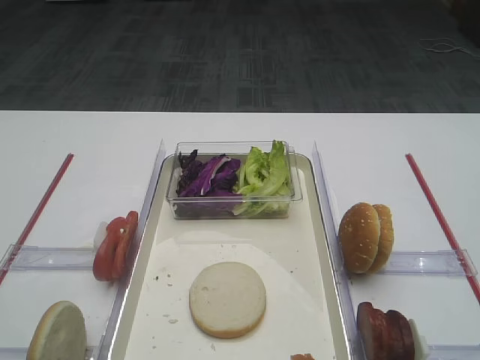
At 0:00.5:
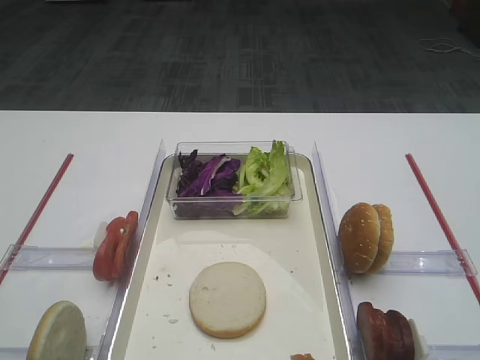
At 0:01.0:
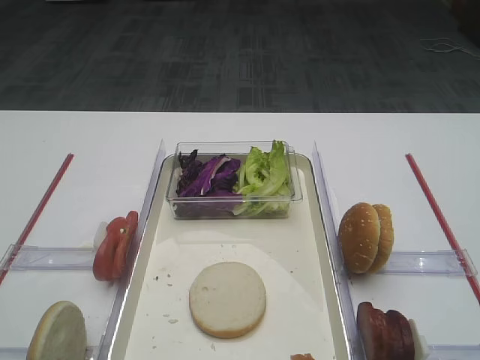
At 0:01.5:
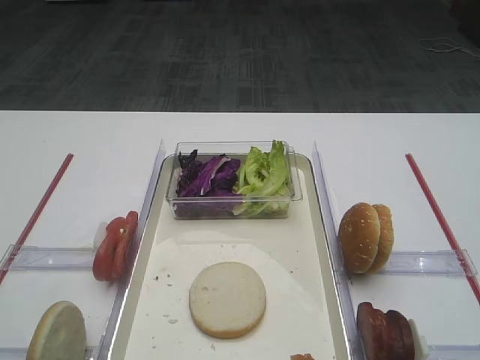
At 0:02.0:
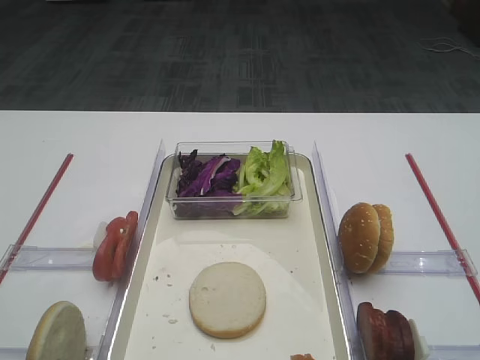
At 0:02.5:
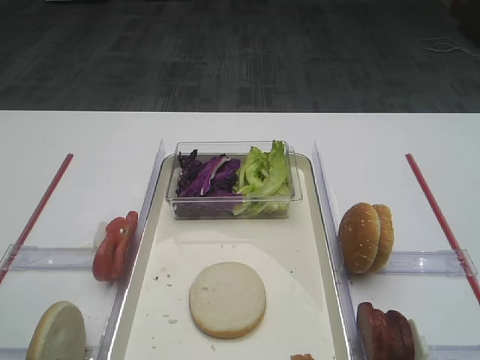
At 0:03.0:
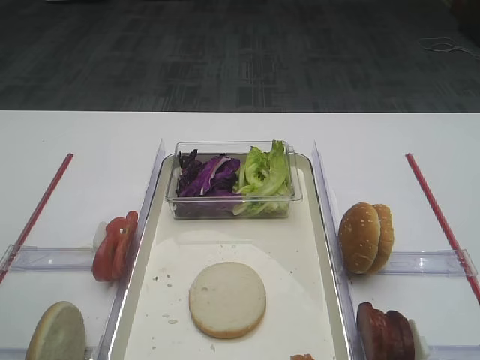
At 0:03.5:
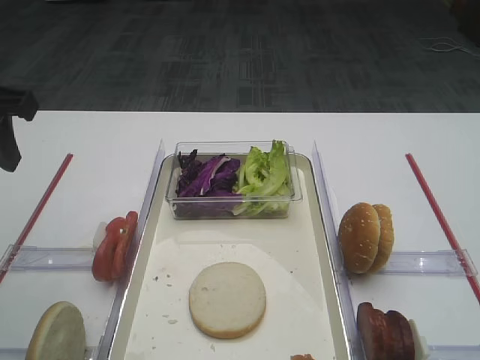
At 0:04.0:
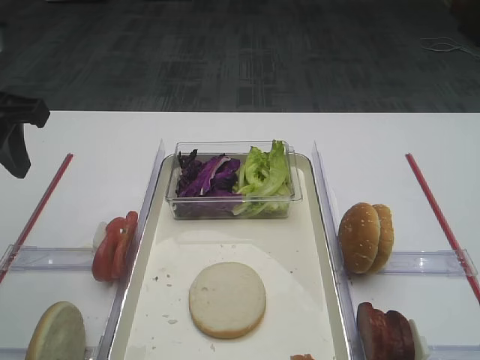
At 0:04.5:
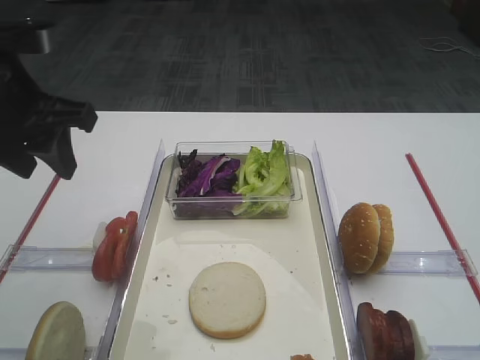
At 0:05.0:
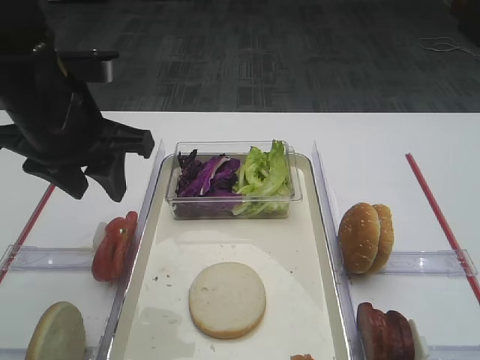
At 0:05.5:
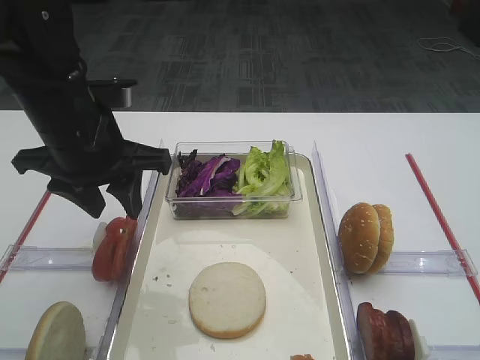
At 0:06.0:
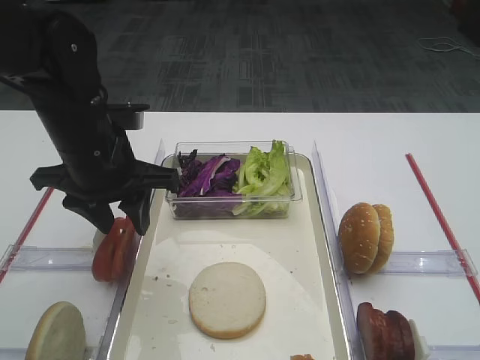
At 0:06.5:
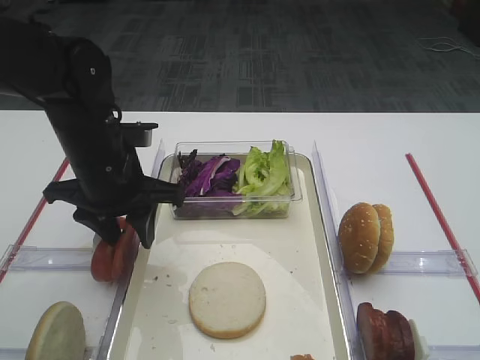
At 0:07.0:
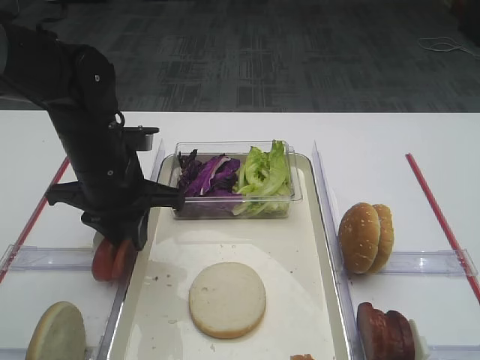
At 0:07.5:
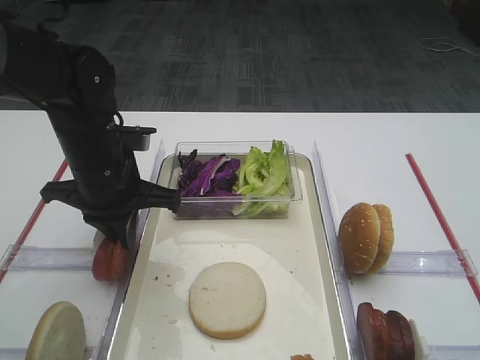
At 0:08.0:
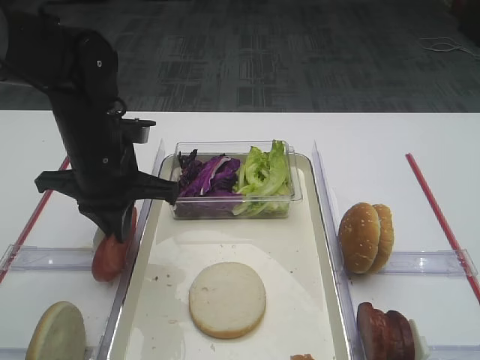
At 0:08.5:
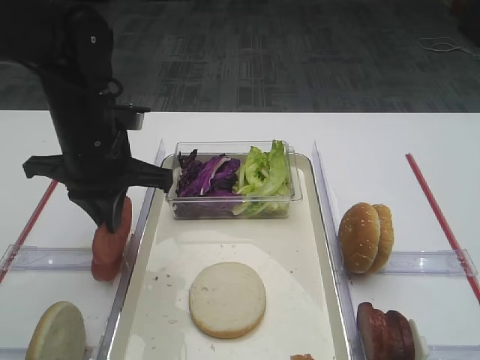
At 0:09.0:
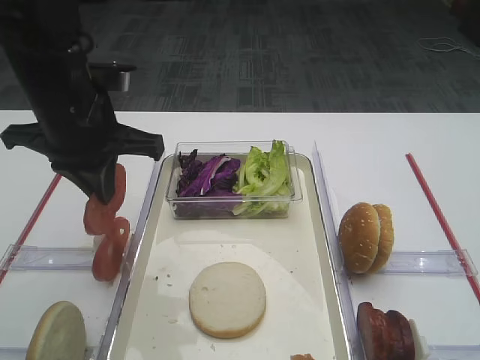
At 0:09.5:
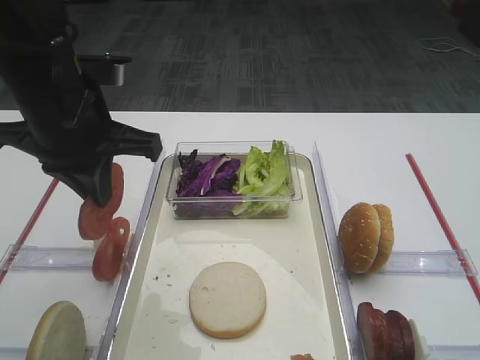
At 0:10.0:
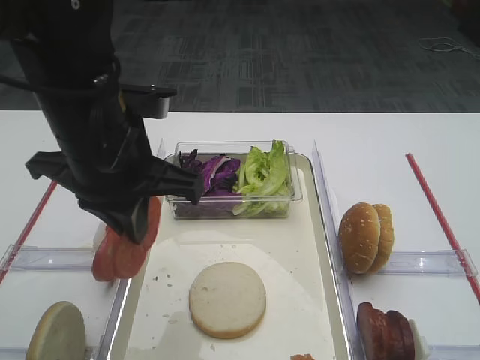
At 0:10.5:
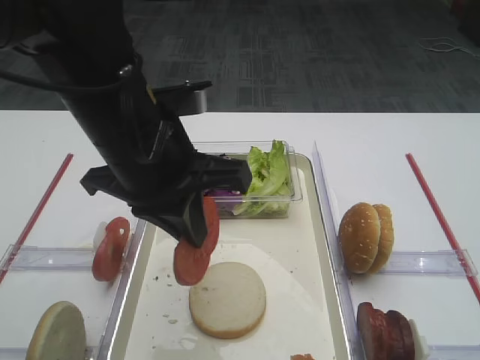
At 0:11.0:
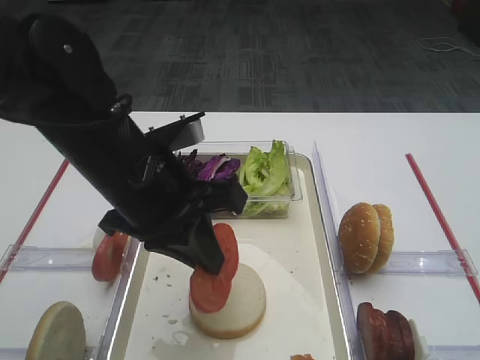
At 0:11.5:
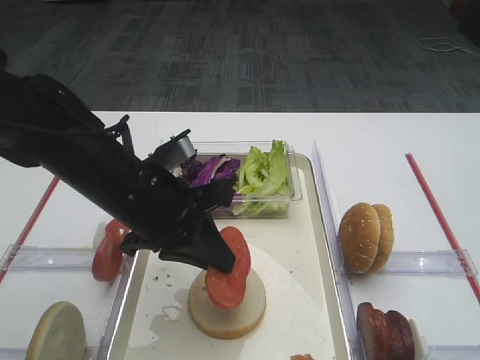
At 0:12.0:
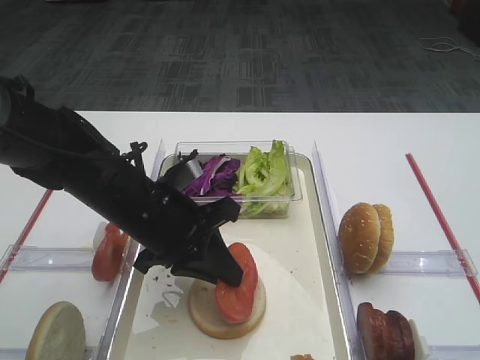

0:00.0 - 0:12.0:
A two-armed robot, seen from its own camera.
Step, 0:00.0 - 0:08.0: Pick up the tomato slice with the left gripper.
0:02.0 - 0:04.0: The left gripper travels forward by about 25 cm.
0:04.0 - 0:06.0: The left gripper goes roughly 15 cm to the right and downward.
0:06.0 - 0:08.0: The left gripper closes its fingers.
0:08.0 - 0:10.0: The left gripper travels upward and backward by about 10 cm.
0:10.0 - 0:12.0: The left gripper goes some 10 cm downward.

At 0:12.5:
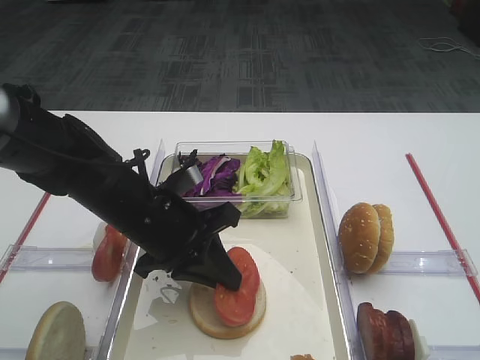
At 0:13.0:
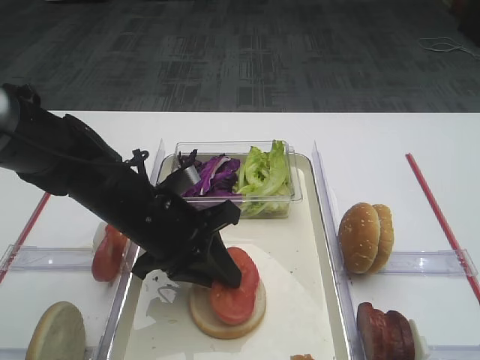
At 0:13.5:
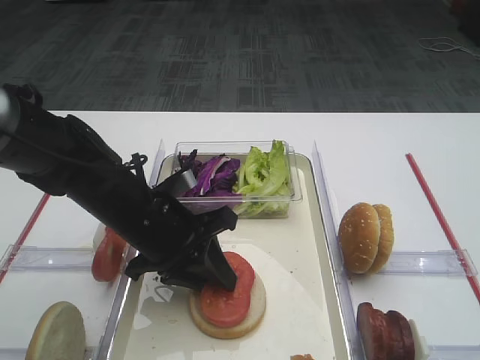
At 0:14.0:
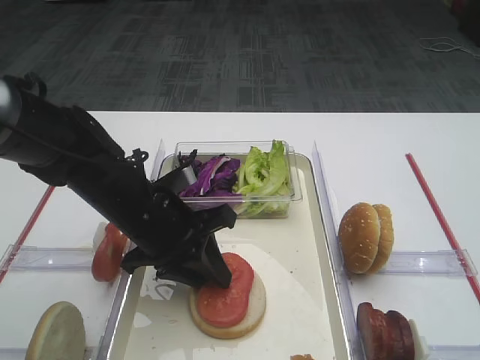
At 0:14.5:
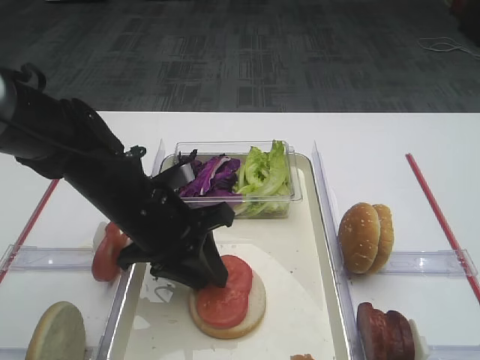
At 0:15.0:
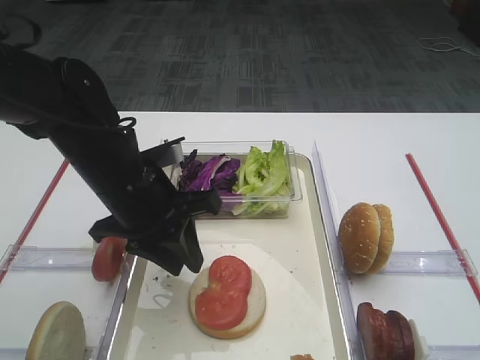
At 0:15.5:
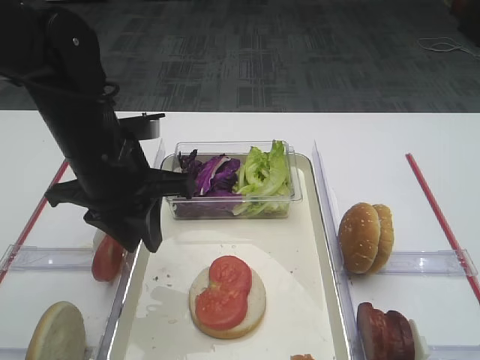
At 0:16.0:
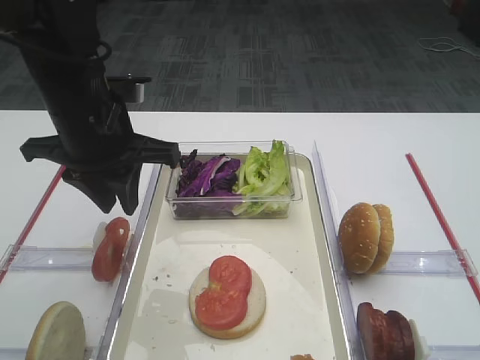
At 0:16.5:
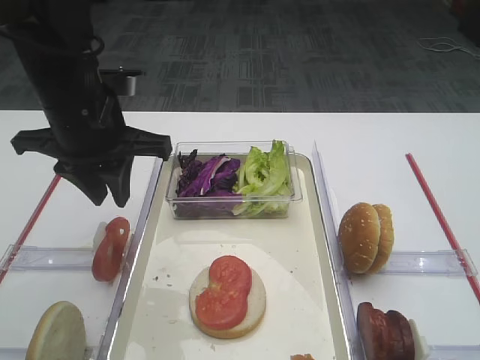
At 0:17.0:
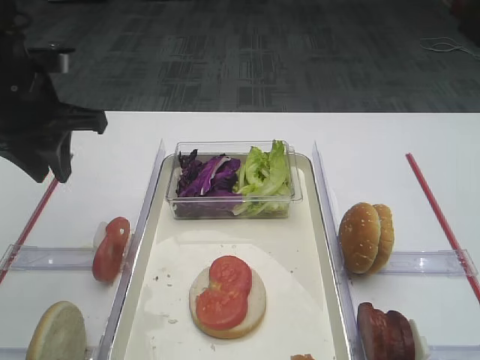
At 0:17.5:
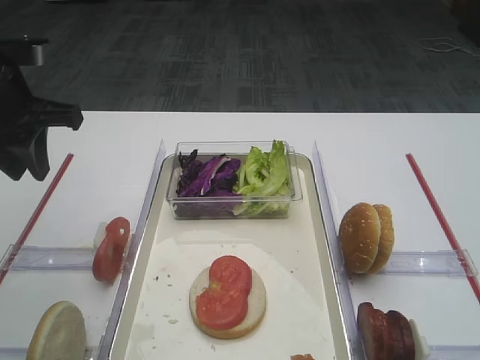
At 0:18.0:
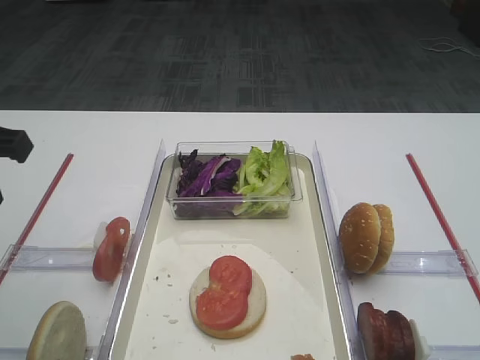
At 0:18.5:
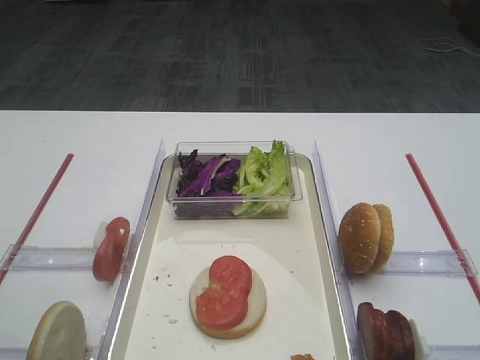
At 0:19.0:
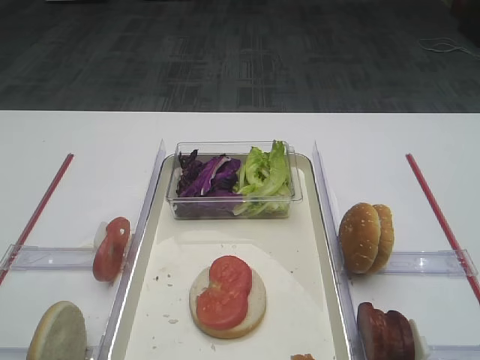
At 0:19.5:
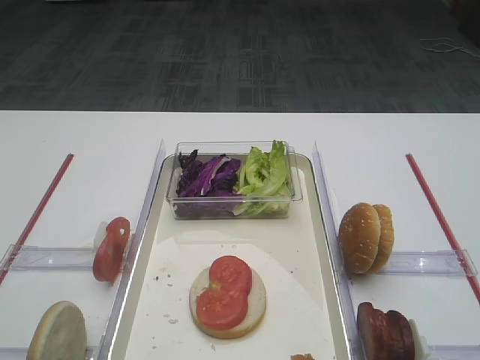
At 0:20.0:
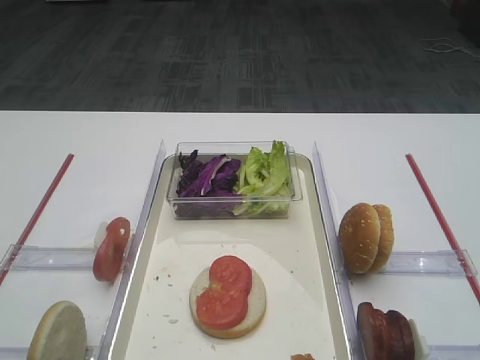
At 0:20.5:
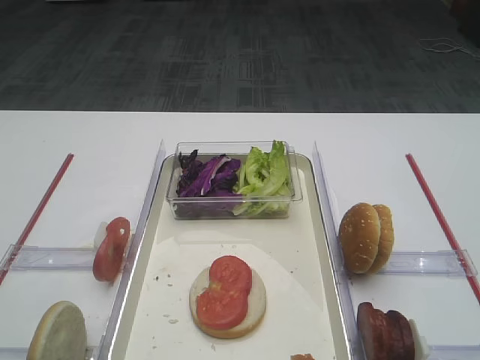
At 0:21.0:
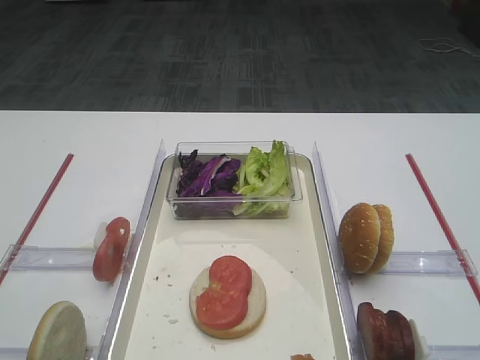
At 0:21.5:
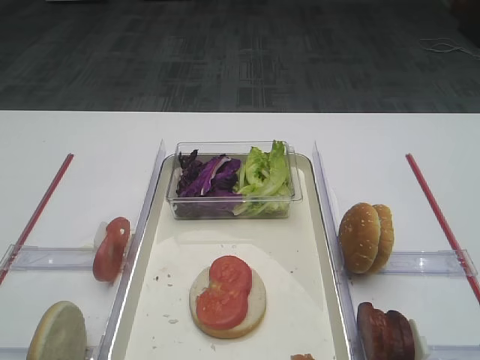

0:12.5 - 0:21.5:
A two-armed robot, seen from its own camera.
Step, 0:12.5 - 0:15.0: Place the tomato slice on the lettuce leaf with the left gripper.
0:12.5 - 0:14.5: The left gripper opens.
0:14.5 - 0:17.0: The left gripper heads to the left and upward, covering approximately 15 cm.
0:17.0 - 0:19.5: The left gripper travels backward by some 30 cm.

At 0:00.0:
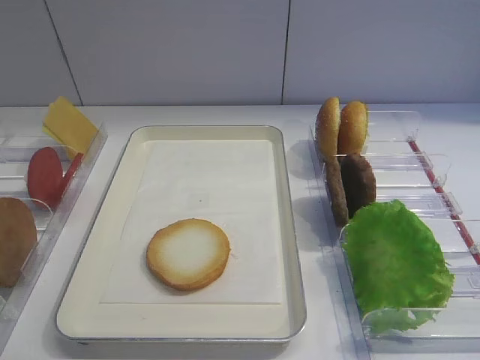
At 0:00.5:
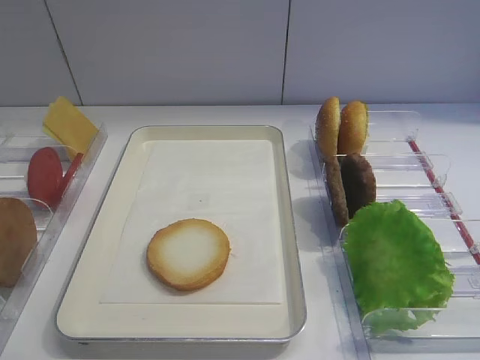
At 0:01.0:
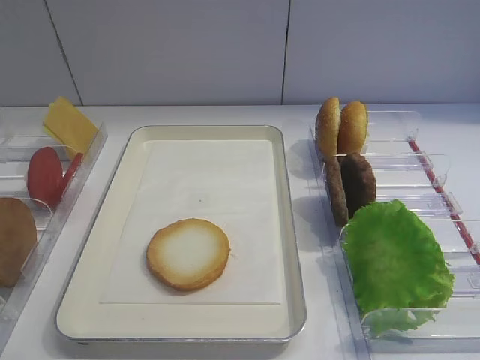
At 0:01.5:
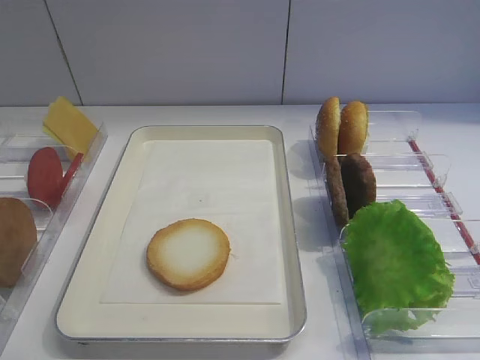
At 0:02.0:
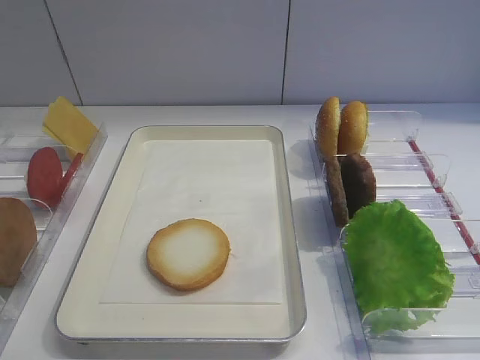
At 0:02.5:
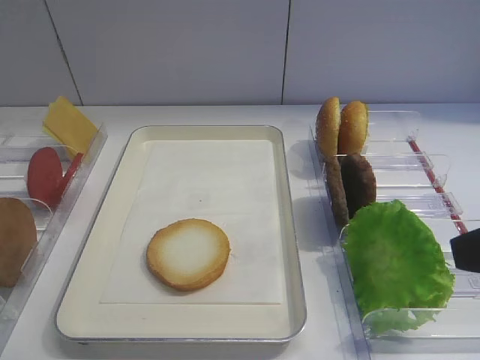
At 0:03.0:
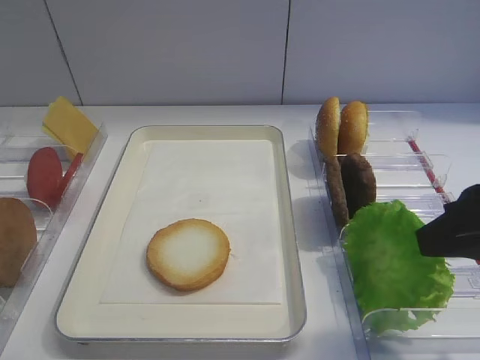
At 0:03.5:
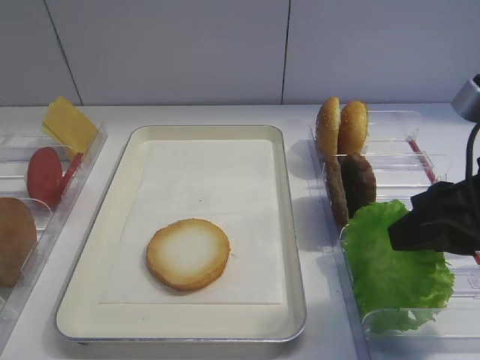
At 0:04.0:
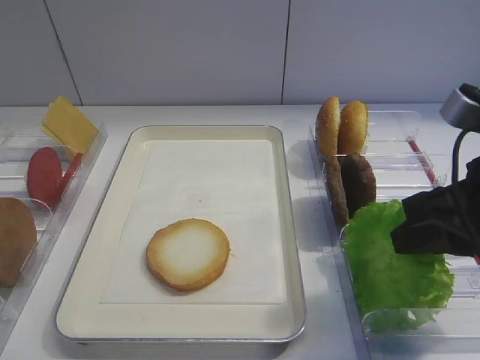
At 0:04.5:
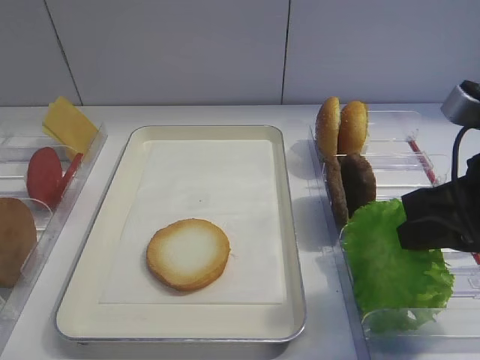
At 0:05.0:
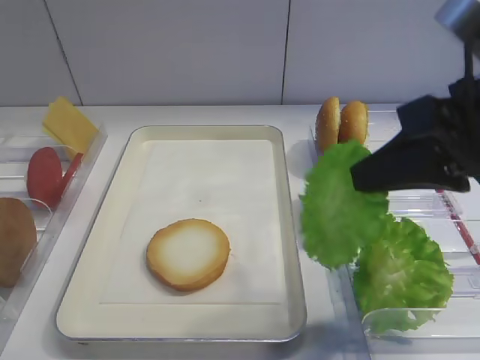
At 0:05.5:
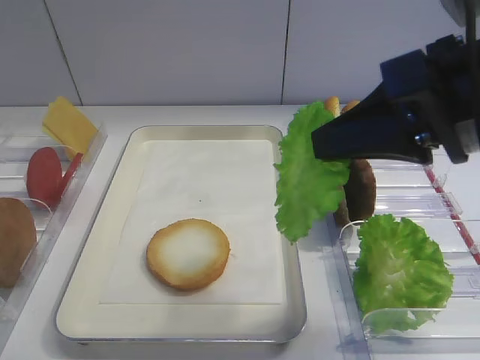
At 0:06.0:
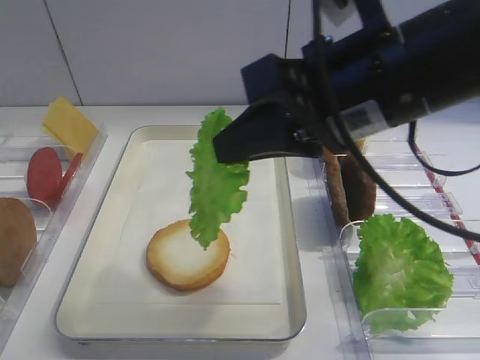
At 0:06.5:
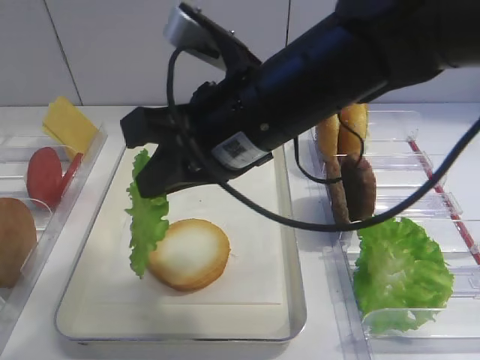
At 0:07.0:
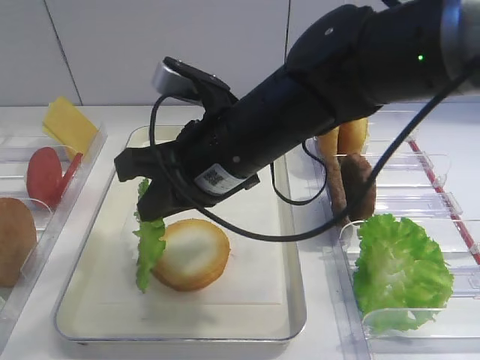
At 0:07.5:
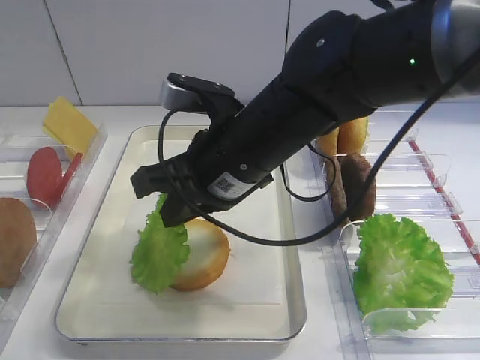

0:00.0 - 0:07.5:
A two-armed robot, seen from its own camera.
Step, 0:00.0 - 0:05.0: Pick up the lettuce leaf with the right gripper.
0:02.0 - 0:04.0: The right gripper is displaced forward and downward by some 15 cm, and closes up.
0:04.0 - 0:05.5: The right gripper travels upward by some 10 cm, and closes.
0:05.5 - 0:07.5: The right gripper is displaced to the left, downward and forward by some 20 cm.
